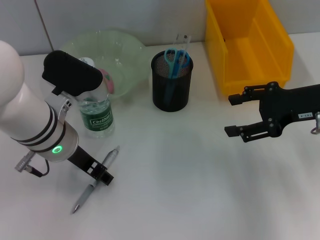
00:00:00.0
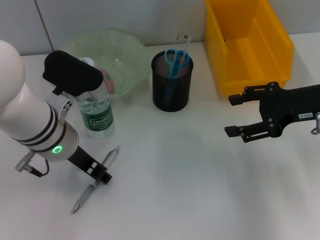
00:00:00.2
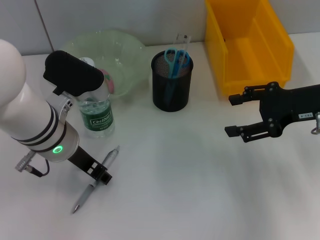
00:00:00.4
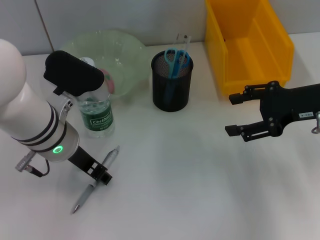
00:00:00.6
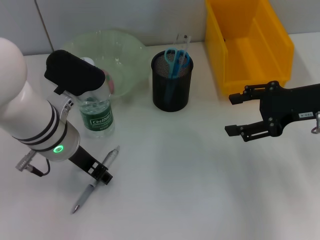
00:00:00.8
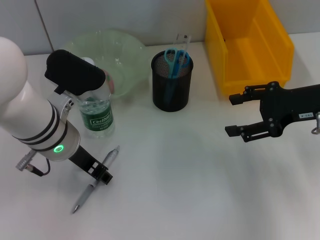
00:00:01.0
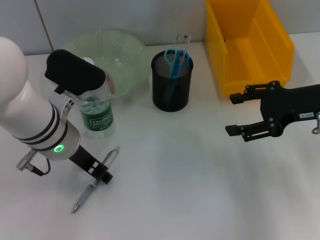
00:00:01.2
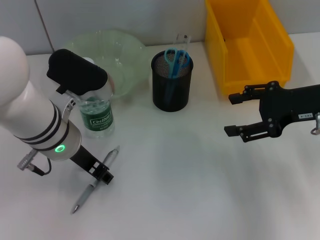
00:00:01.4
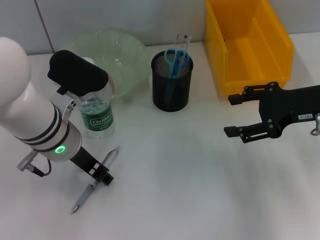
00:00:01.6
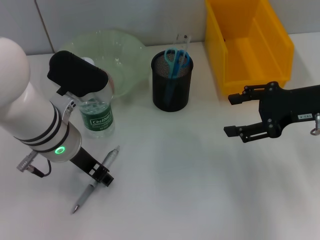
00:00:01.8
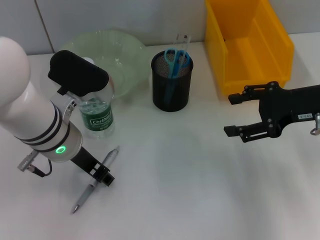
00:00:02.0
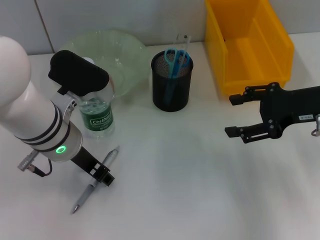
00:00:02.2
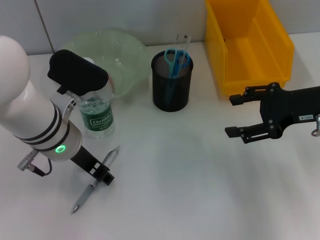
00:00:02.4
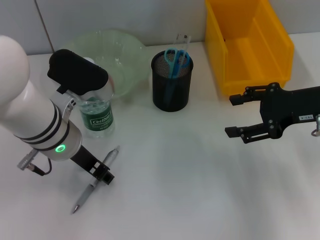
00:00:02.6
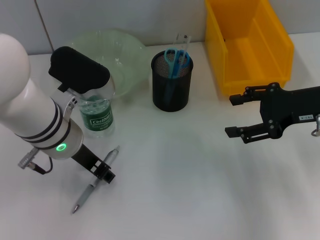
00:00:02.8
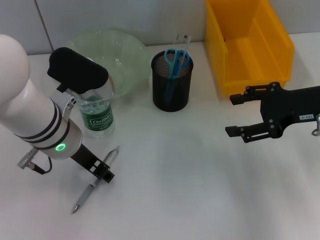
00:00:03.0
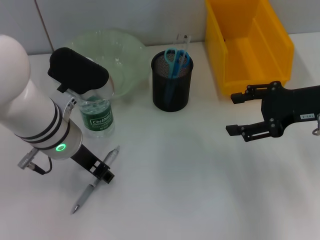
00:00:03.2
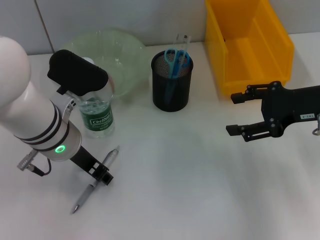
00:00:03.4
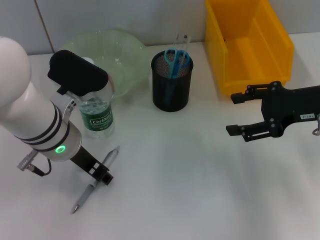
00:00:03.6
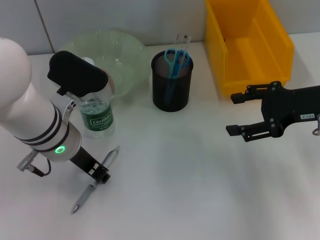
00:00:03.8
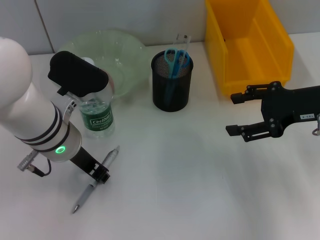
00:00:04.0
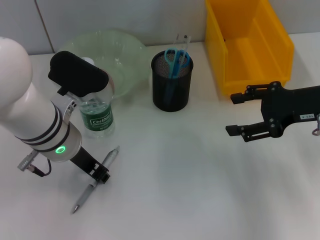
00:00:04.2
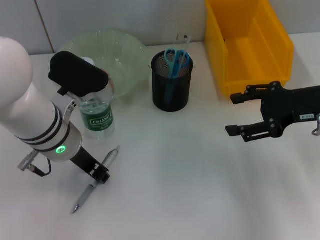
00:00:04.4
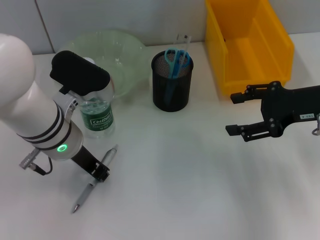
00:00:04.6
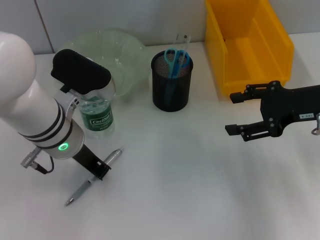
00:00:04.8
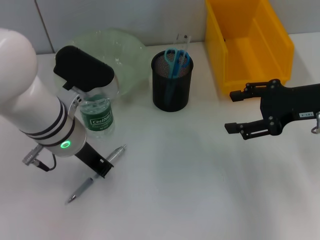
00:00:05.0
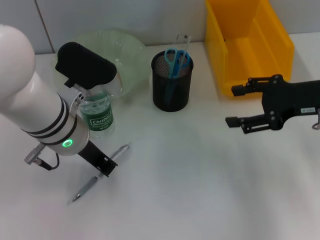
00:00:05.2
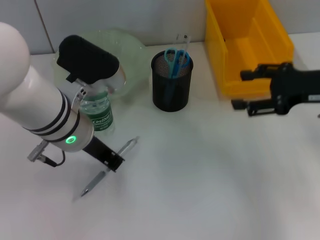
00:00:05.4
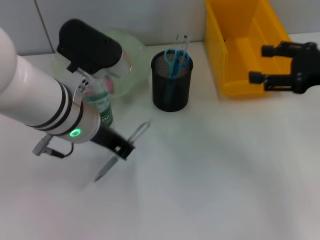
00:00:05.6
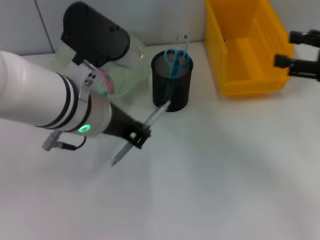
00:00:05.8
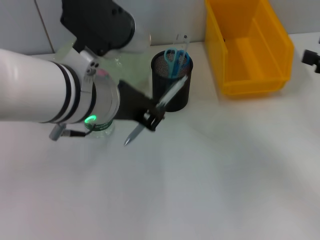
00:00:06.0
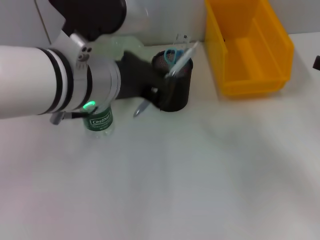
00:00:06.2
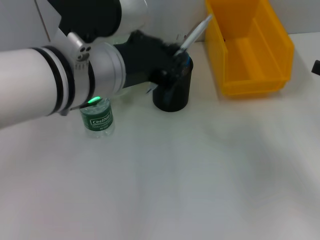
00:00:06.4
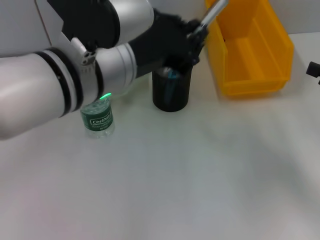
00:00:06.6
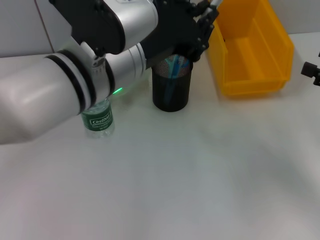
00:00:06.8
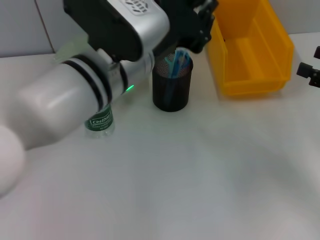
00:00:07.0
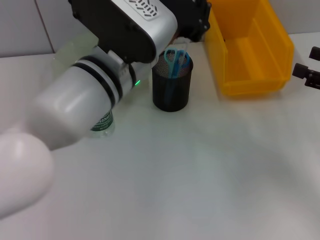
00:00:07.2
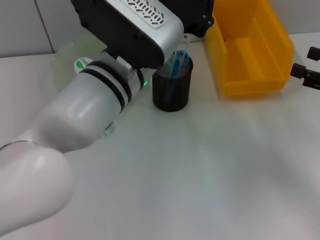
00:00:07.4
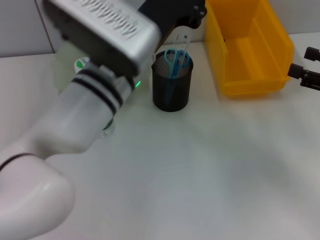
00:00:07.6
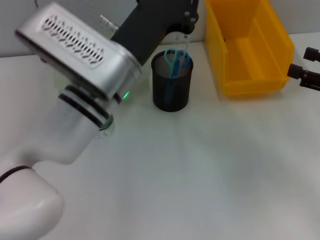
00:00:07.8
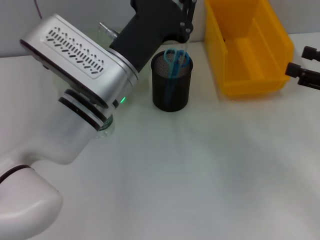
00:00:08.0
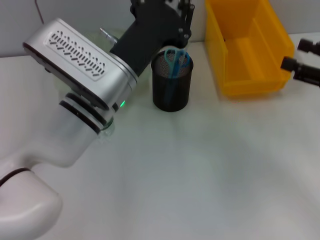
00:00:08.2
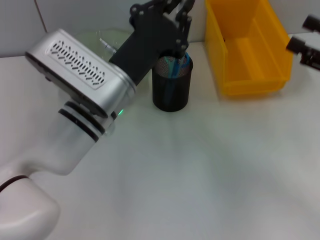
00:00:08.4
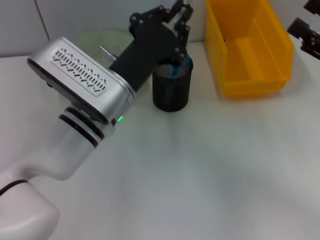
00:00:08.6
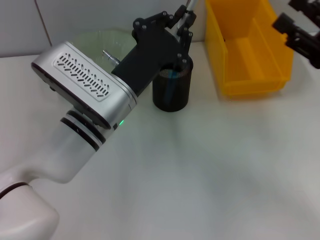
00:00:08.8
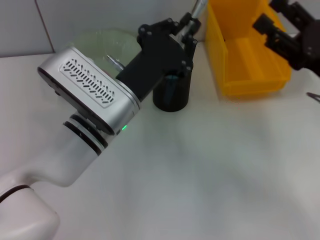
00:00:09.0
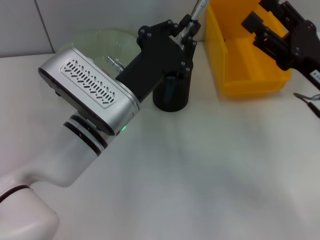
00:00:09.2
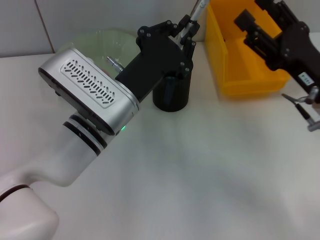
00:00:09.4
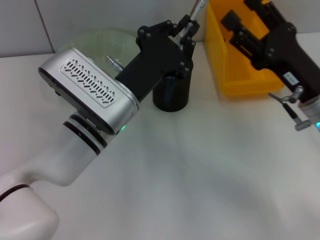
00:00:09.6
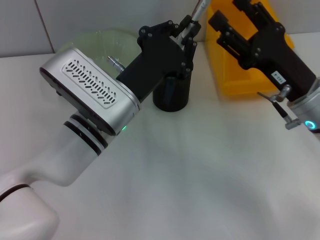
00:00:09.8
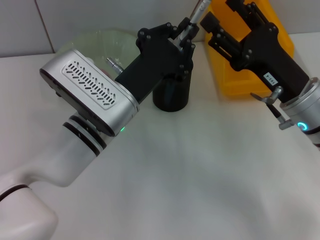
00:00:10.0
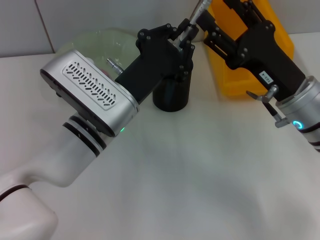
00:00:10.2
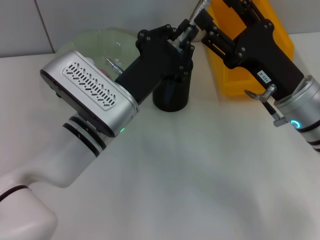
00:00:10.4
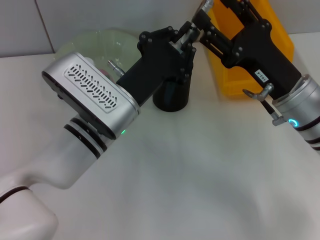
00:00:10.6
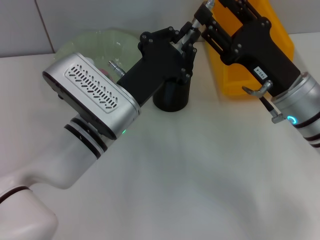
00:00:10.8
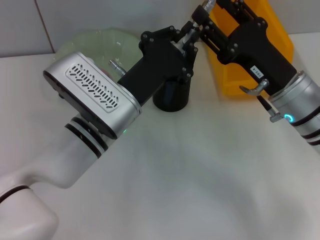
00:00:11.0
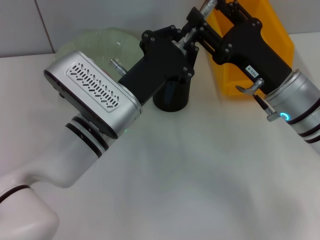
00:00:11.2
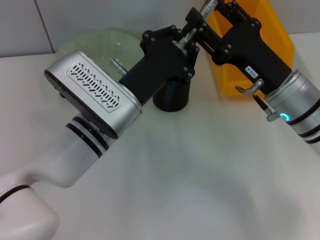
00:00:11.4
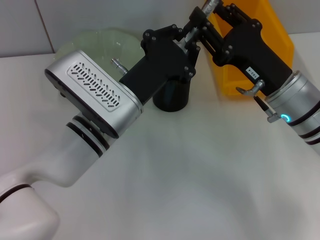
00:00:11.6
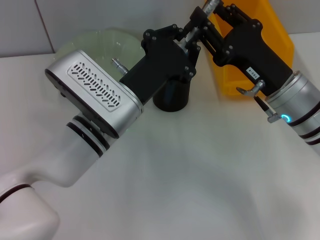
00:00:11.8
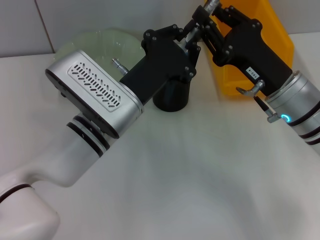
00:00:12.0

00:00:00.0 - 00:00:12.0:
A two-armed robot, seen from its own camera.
Step, 00:00:00.0 - 00:00:04.6: Grab the gray spring-action pen with the left hand.
00:00:00.0 - 00:00:04.4: Both grippers stay put.
00:00:04.4 - 00:00:06.0: The right gripper travels to the right by about 10 cm. The left gripper goes roughly 5 cm upward.
00:00:06.0 - 00:00:07.6: The left gripper changes place by about 5 cm.
00:00:07.6 - 00:00:09.0: The left gripper goes some 5 cm downward. Meanwhile the right gripper goes roughly 10 cm to the left.
00:00:09.0 - 00:00:10.4: The right gripper is displaced to the left by some 10 cm.
00:00:10.4 - 00:00:12.0: The right gripper closes up.

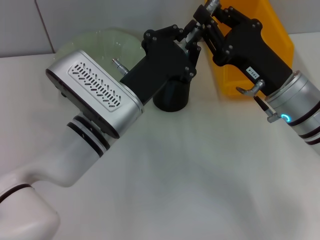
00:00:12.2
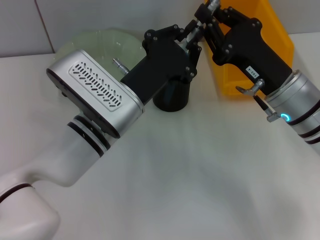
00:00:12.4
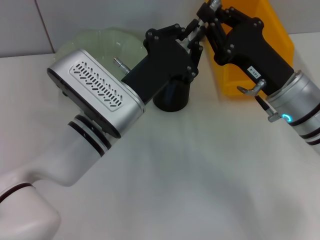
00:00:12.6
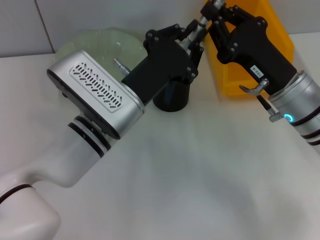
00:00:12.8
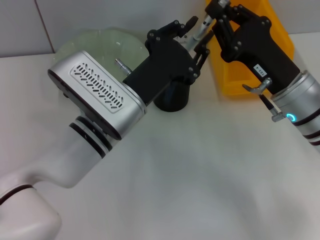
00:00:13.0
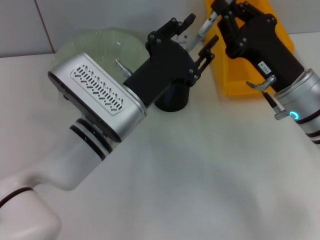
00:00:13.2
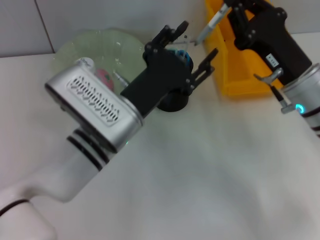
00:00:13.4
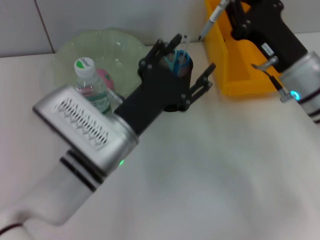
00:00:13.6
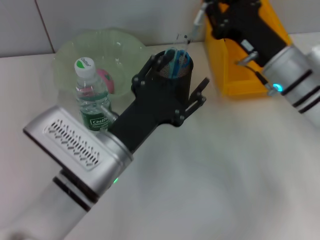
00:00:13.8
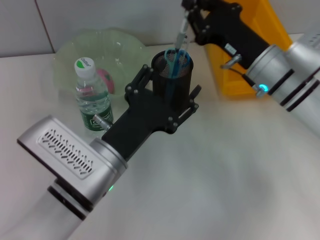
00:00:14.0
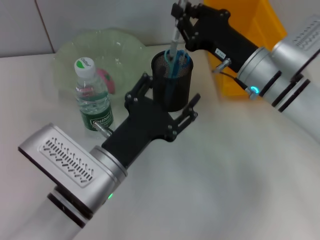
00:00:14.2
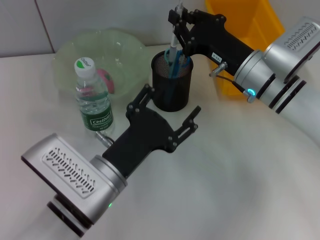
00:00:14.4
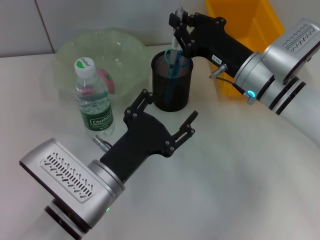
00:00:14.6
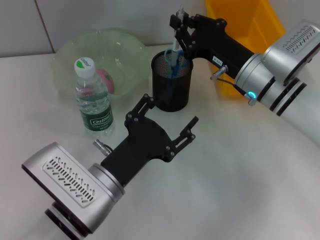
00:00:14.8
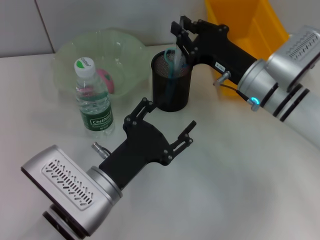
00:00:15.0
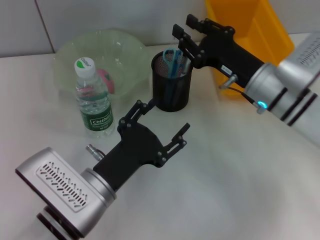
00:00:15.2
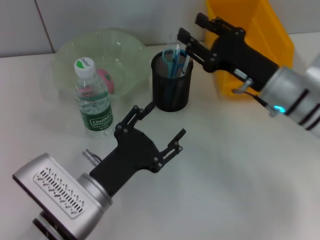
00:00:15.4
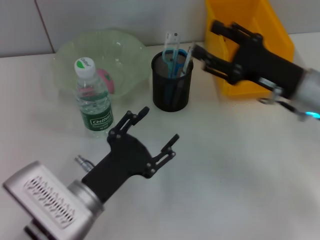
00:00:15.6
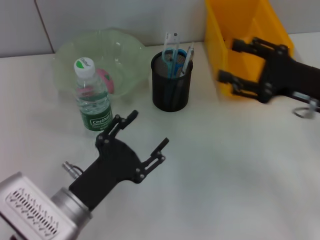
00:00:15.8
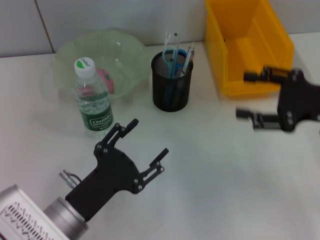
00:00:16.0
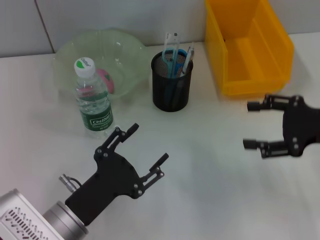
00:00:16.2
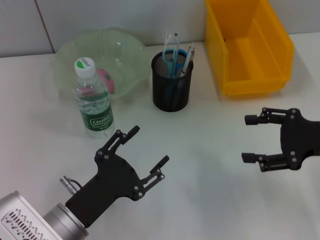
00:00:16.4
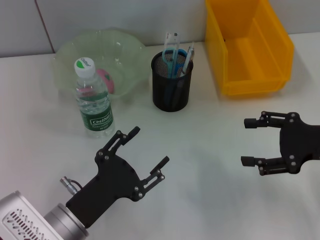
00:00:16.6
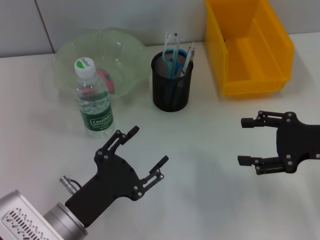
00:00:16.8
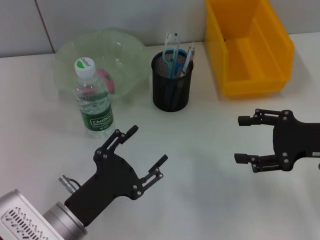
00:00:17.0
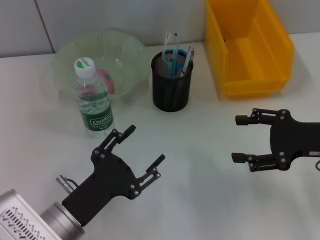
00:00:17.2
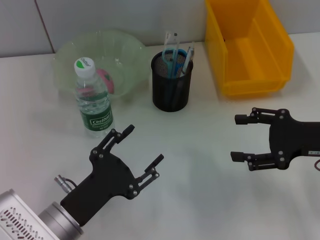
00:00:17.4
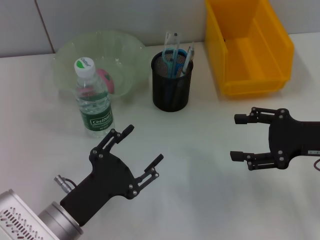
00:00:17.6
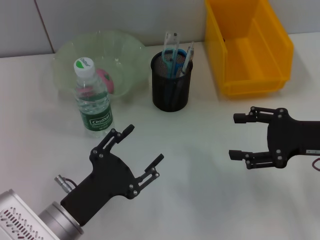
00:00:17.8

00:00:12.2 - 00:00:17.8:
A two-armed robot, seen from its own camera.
Step, 00:00:12.8 - 00:00:15.2: Place the gray spring-action pen into the pen holder with the right hand.
00:00:12.2 - 00:00:13.6: The left gripper opens.
00:00:13.6 - 00:00:15.0: The left gripper travels backward by some 5 cm.
00:00:15.0 - 00:00:16.4: The left gripper moves roughly 5 cm. Meanwhile the right gripper is displaced to the right and backward by approximately 15 cm, and opens its fingers.
00:00:16.4 - 00:00:17.8: There are only small adjustments of the grippers.
